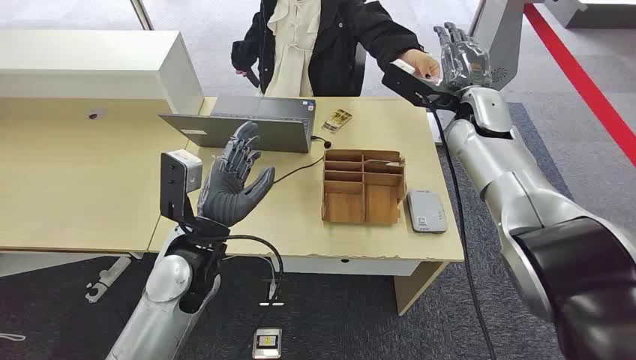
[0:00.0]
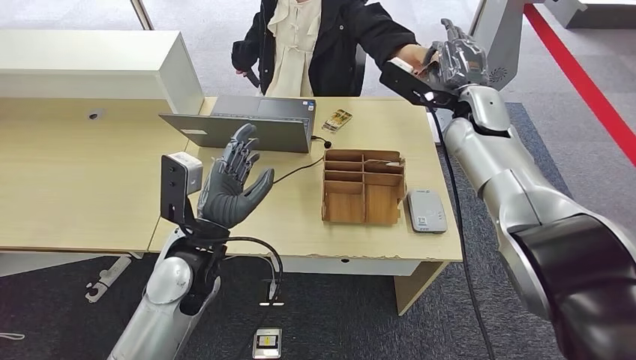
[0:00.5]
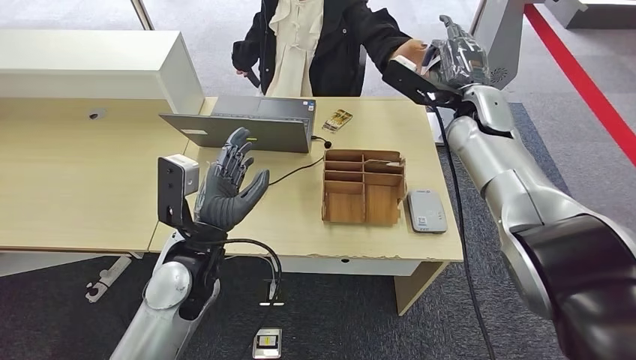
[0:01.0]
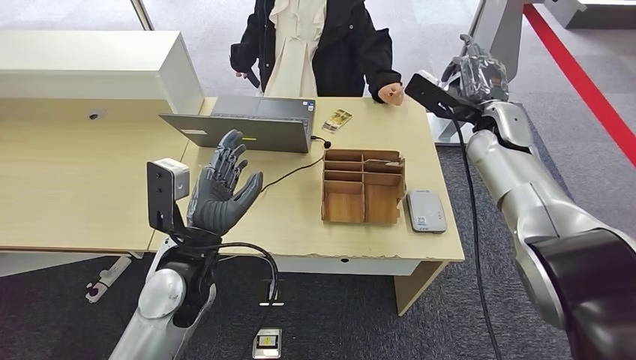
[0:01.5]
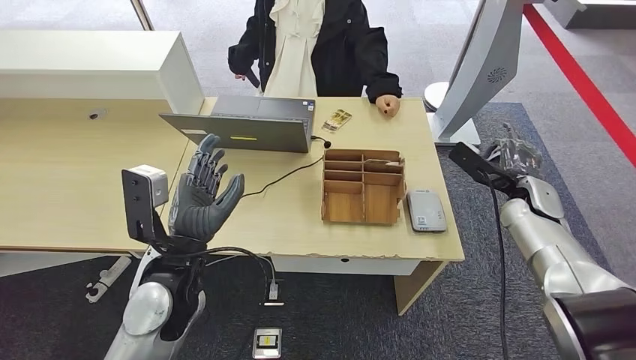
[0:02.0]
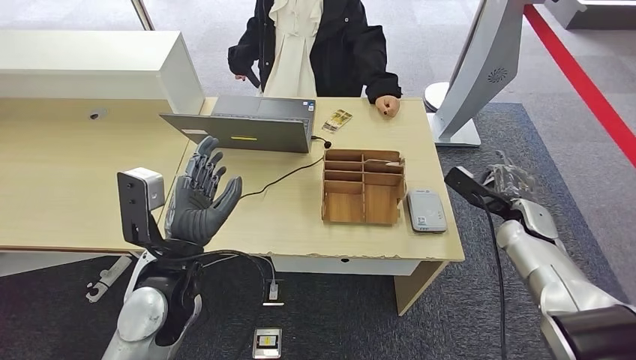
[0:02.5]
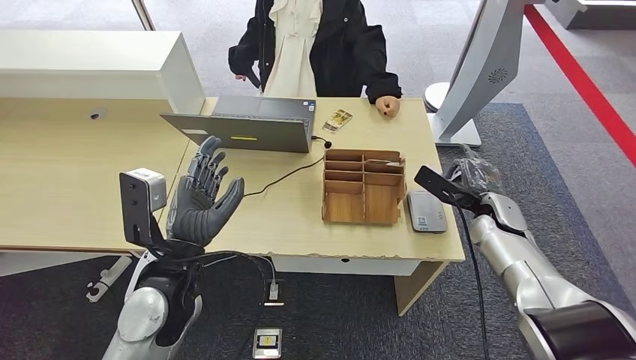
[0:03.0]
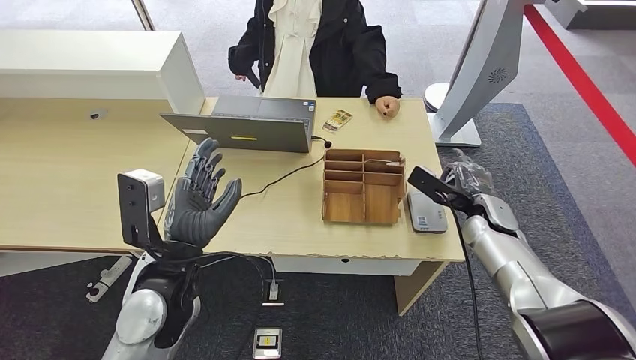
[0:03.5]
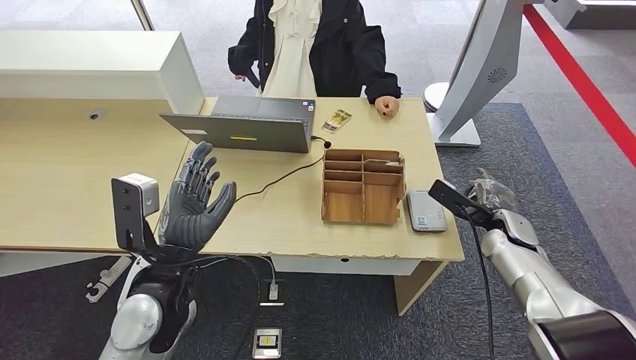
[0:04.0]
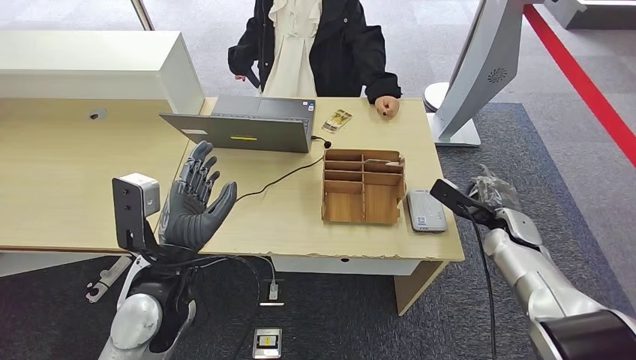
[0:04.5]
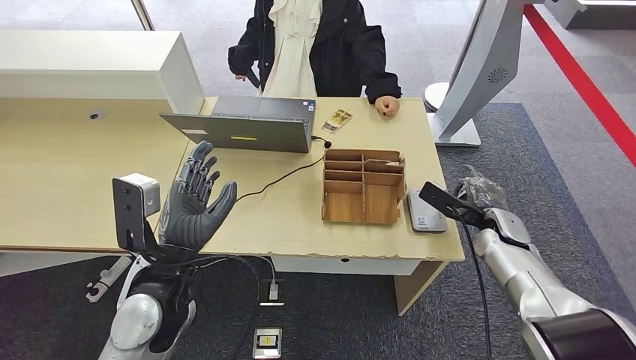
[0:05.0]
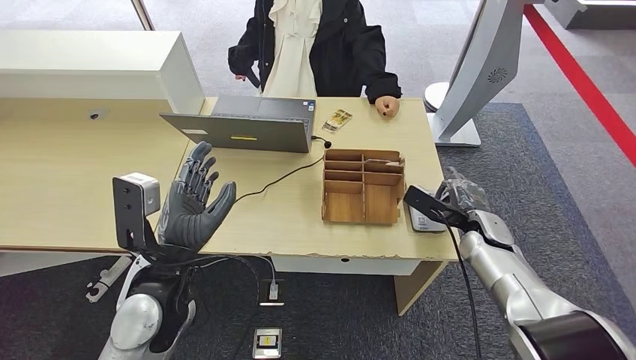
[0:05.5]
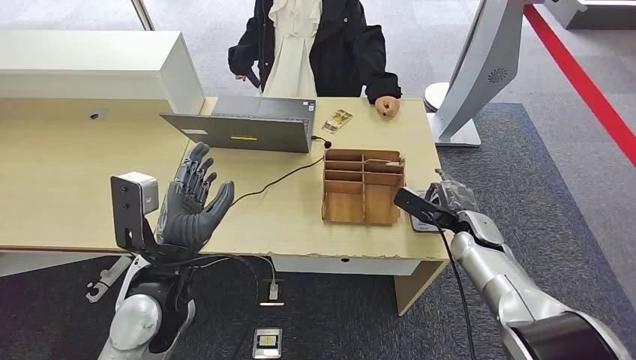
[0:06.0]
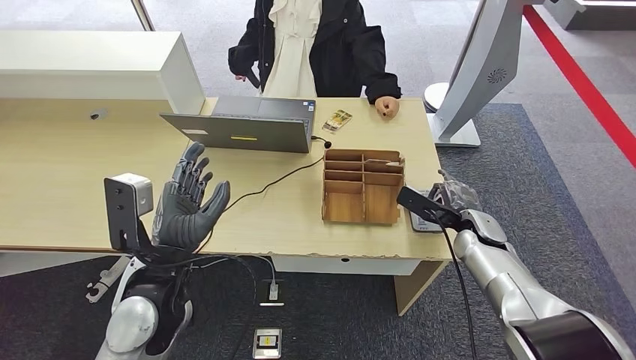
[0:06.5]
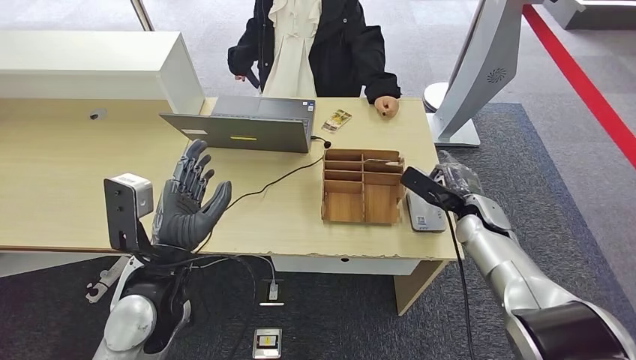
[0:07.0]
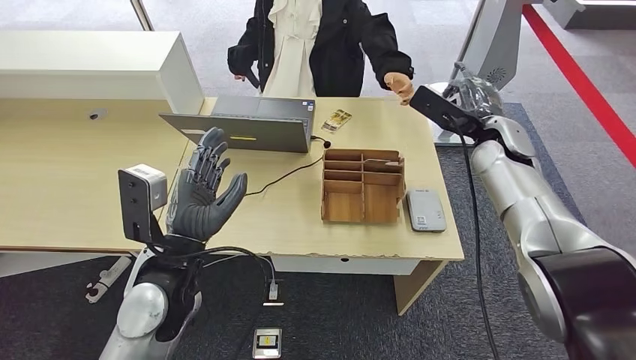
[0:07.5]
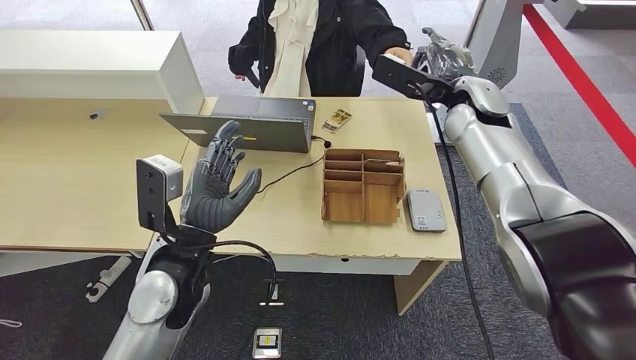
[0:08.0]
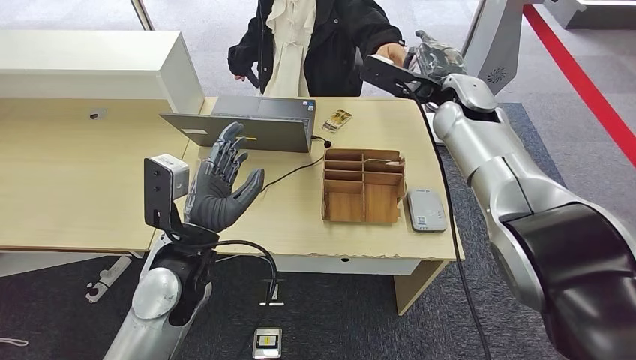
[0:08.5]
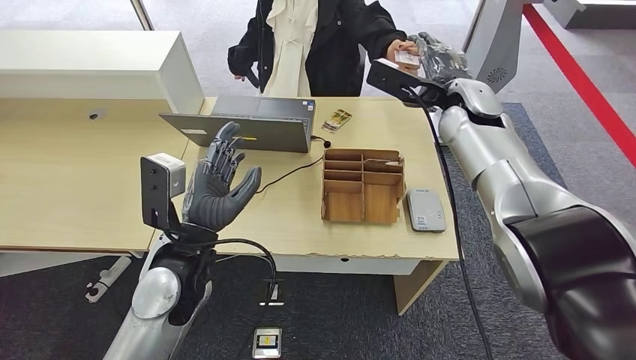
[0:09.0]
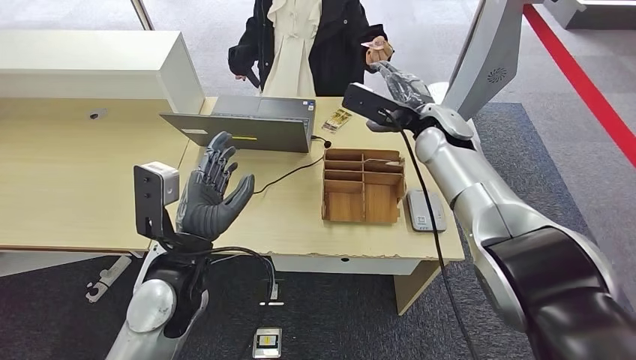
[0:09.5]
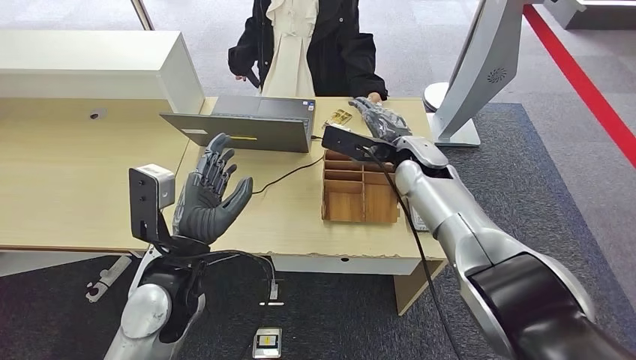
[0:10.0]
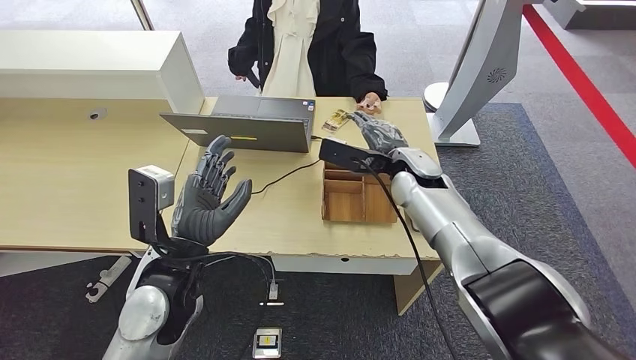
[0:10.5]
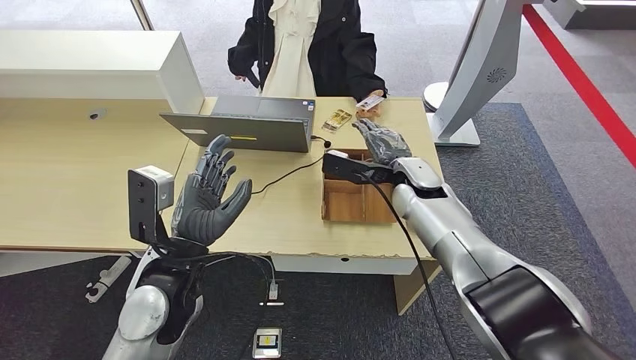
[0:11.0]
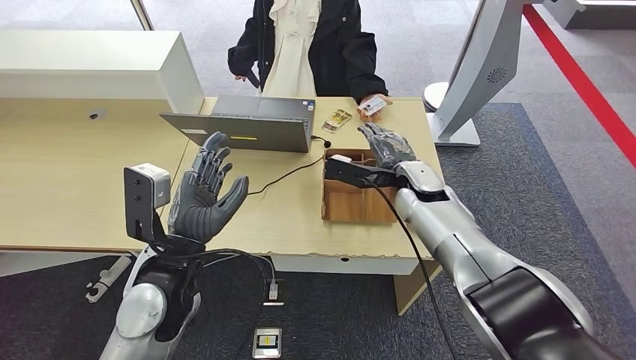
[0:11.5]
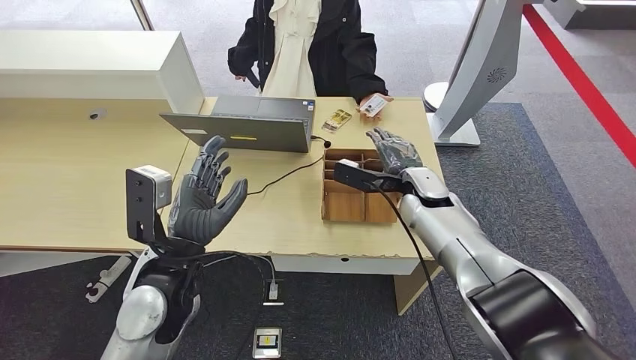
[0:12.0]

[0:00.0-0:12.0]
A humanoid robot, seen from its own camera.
Step, 0:00.0 to 0:03.0: Take the ID card from the person's hand.
Step, 0:04.0 to 0:07.0: Place the ID card on the card reader.
Step, 0:07.5 to 0:10.0: Hand the ID card to the person.
0:02.0 to 0:04.0: The right hand is displaced downward by about 5 cm.
0:04.0 to 0:06.0: The right hand shifts some 5 cm to the left.
0:10.0 to 0:12.0: The right hand travels downward by about 5 cm.

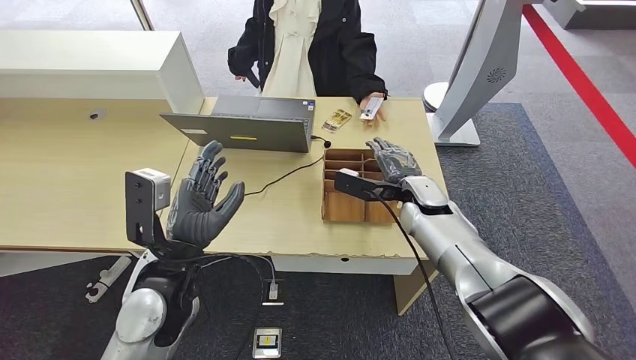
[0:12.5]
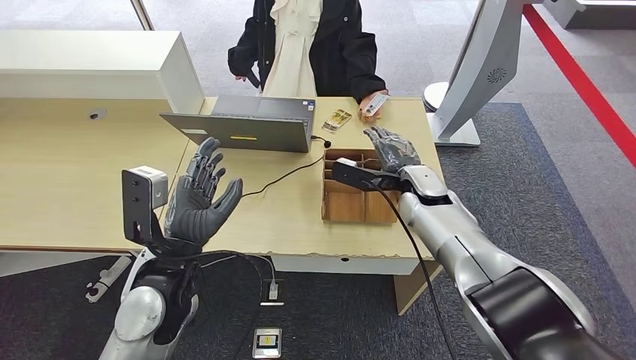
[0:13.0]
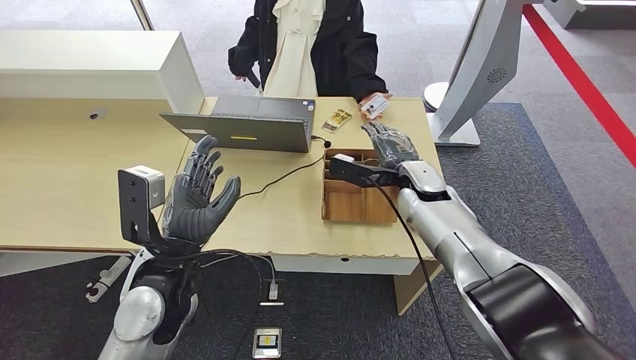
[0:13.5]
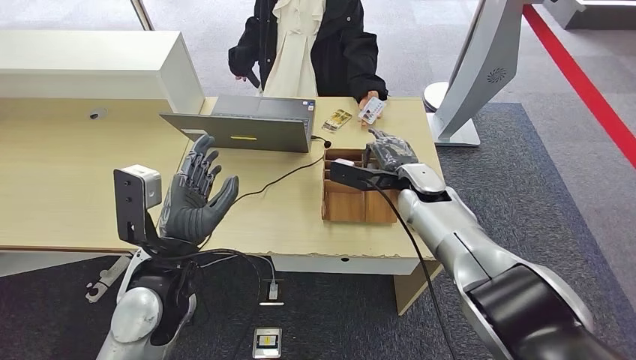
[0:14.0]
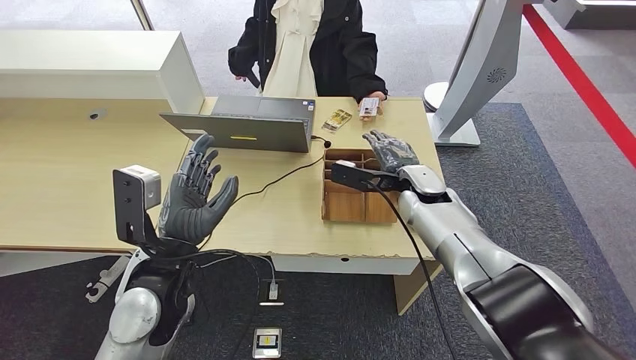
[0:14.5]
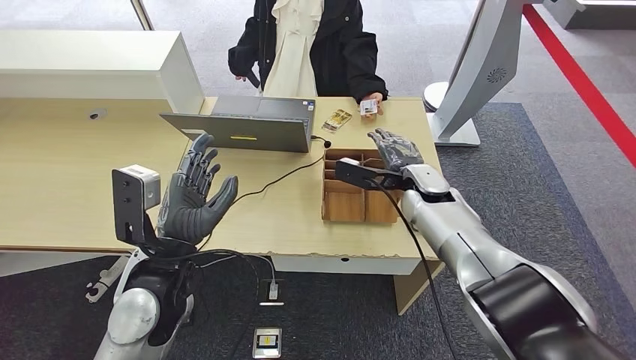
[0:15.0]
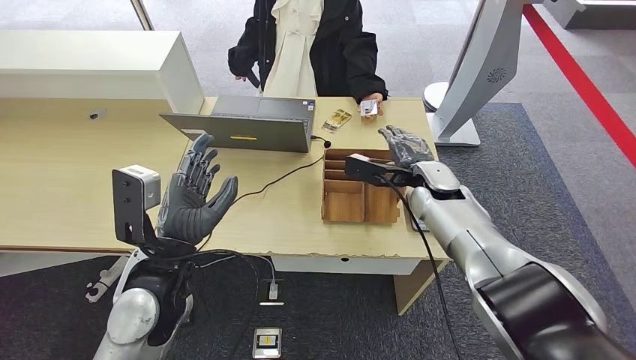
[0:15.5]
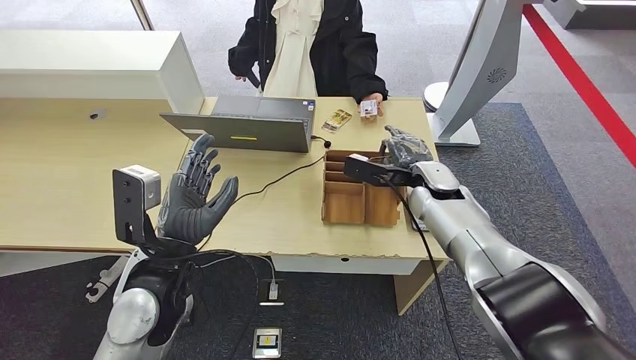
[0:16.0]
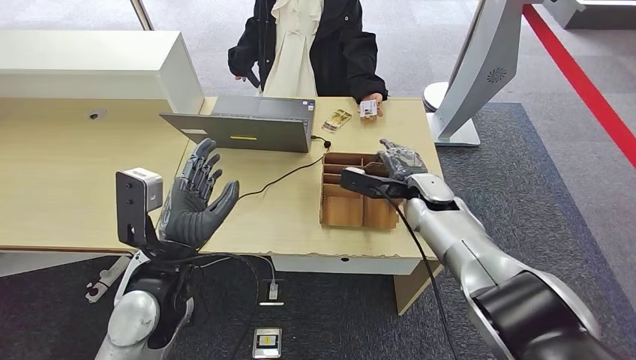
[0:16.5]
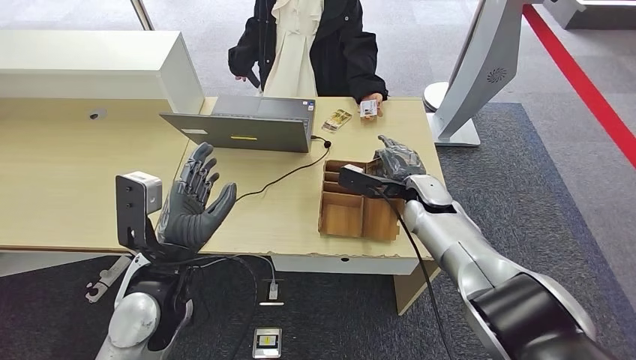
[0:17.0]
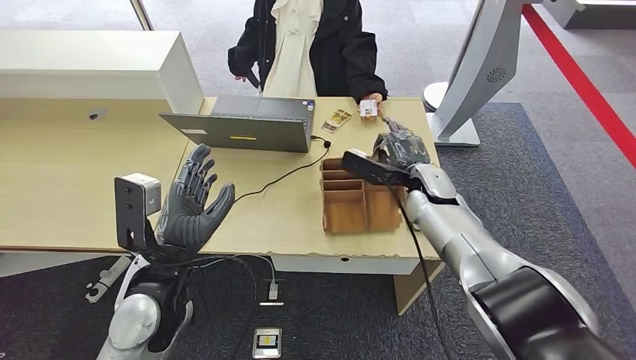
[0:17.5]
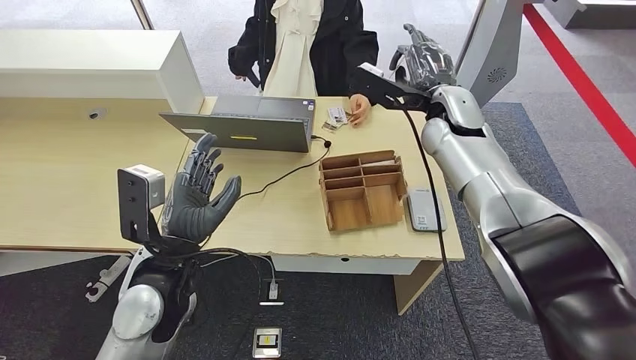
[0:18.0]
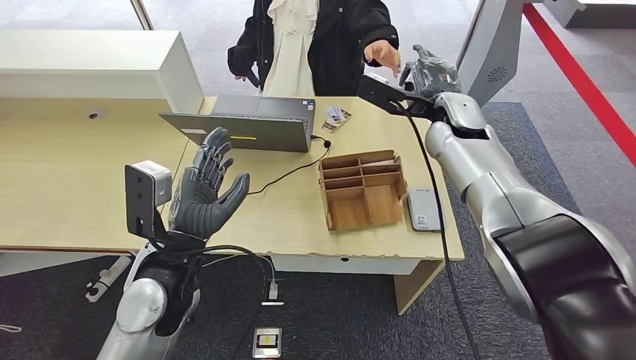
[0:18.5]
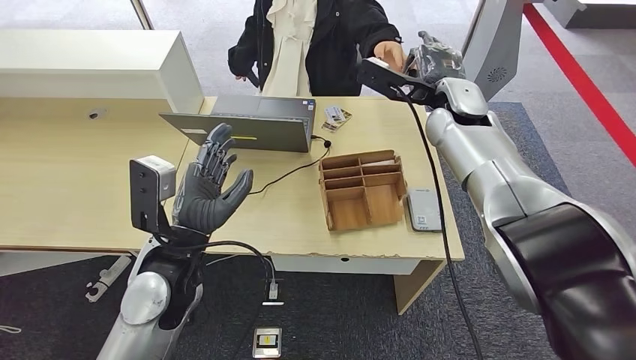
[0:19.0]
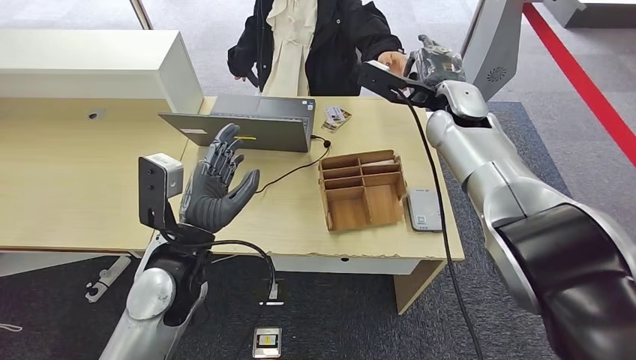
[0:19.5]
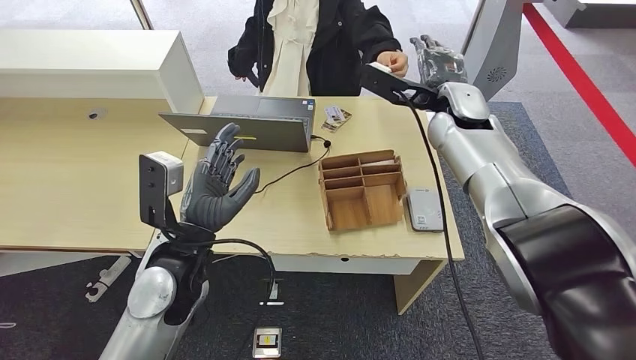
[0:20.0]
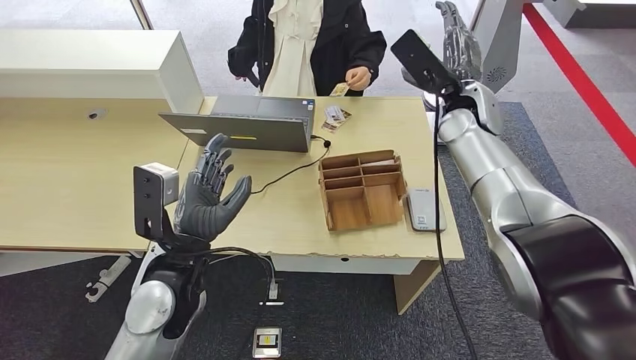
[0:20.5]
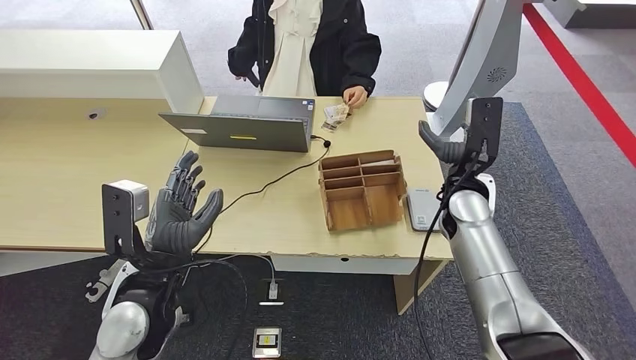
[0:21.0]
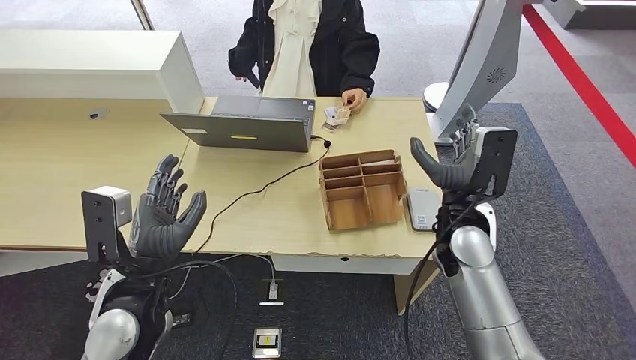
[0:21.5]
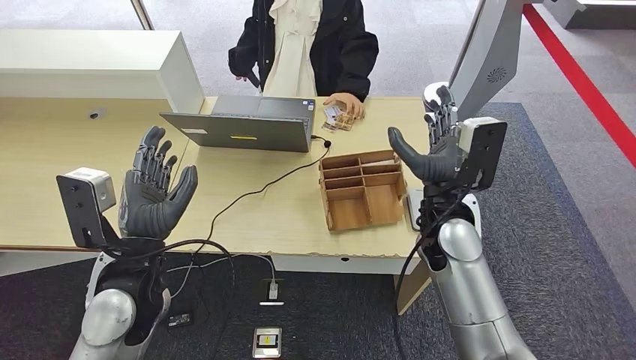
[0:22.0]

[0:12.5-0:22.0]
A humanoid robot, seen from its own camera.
Step, 0:16.0 to 0:18.5: Pick up the room key from the key card box.
Step, 0:19.0 to 0:22.0: Hand the room key to the person.
0:12.5 to 0:16.5: The hands stay close to where they were, moving slightly.
0:18.0 to 0:20.0: The hands make only small movements.
